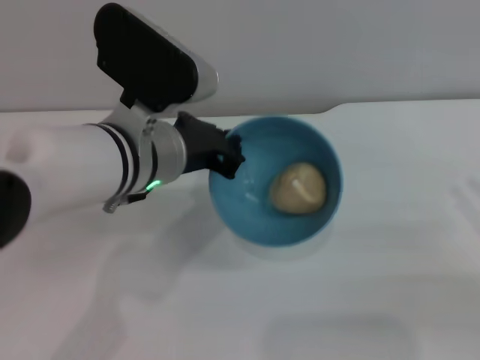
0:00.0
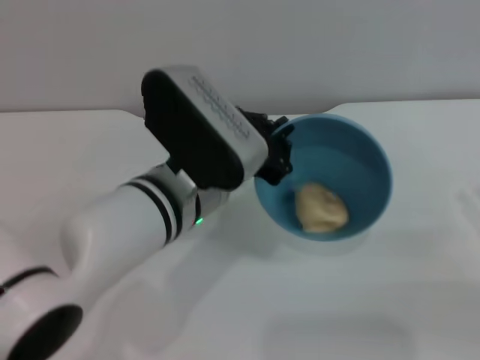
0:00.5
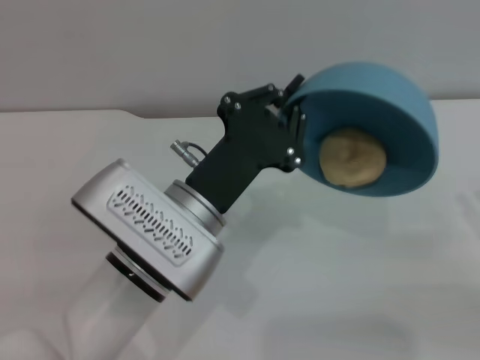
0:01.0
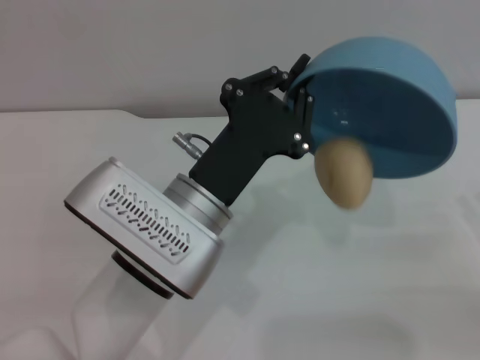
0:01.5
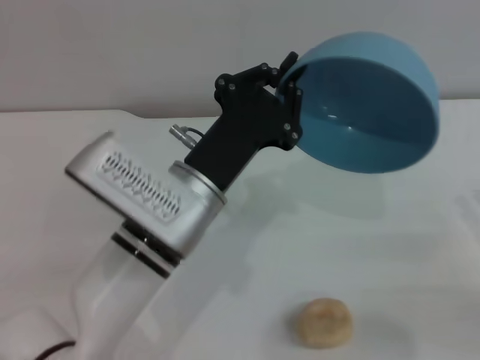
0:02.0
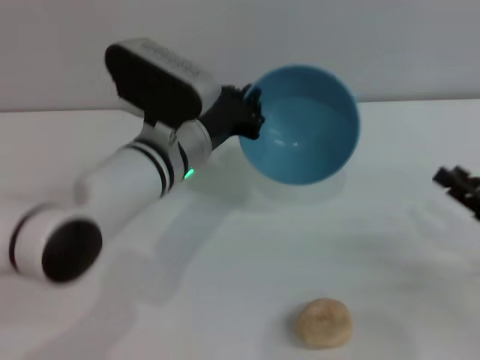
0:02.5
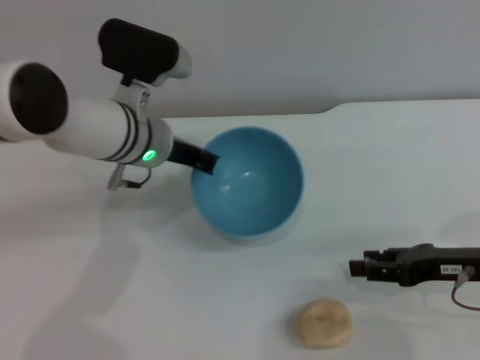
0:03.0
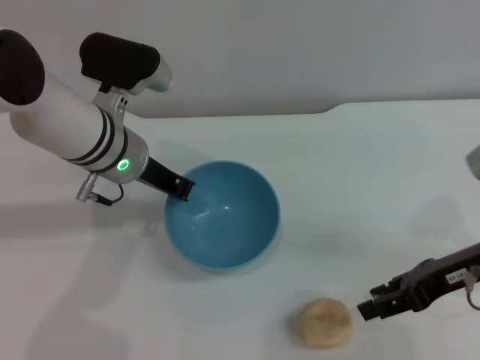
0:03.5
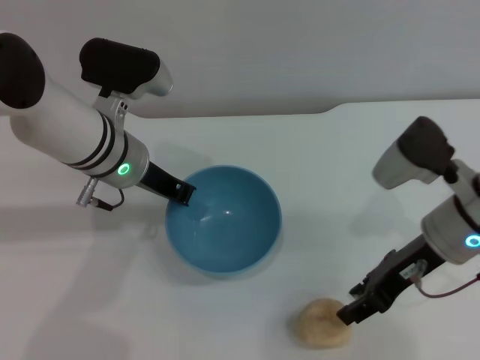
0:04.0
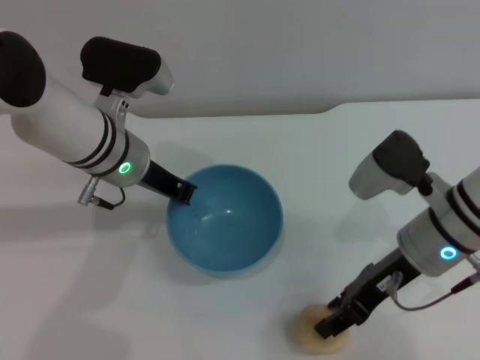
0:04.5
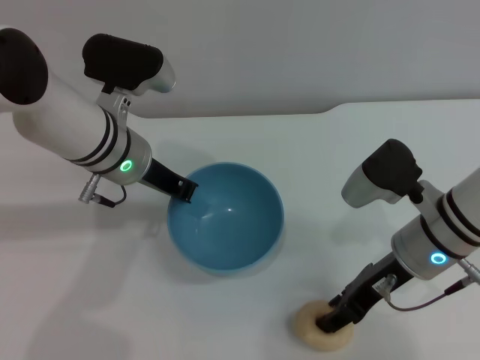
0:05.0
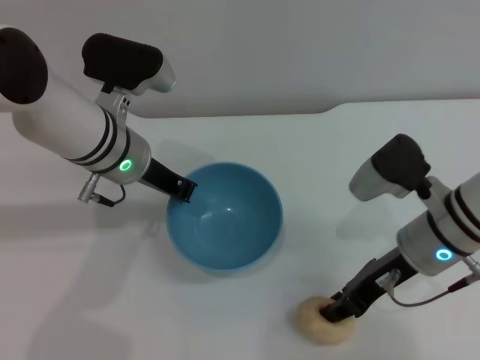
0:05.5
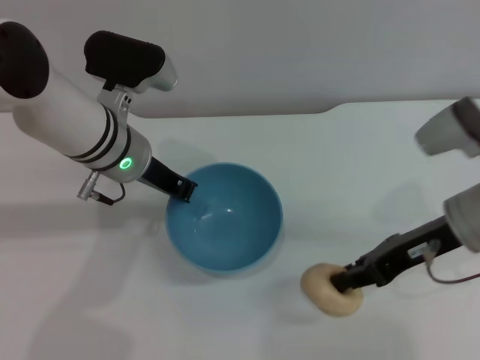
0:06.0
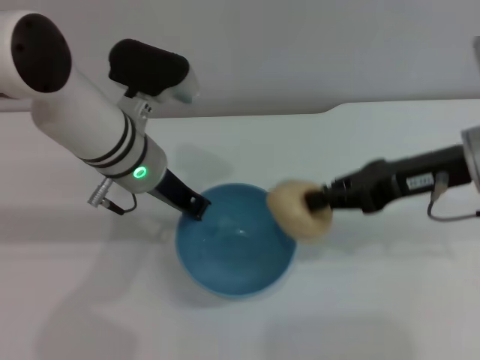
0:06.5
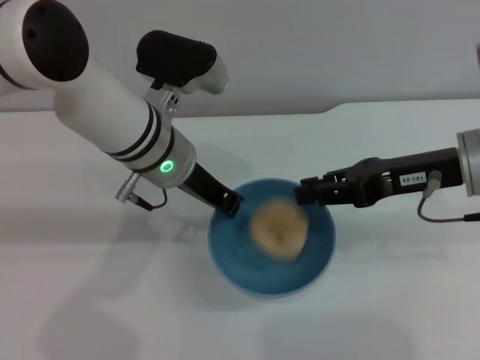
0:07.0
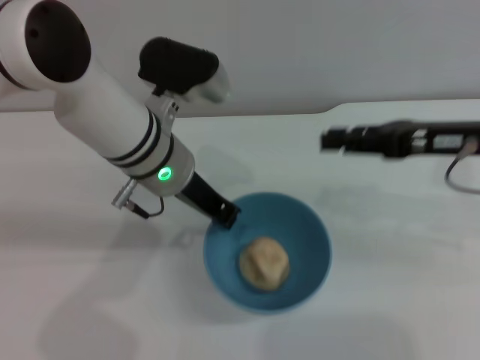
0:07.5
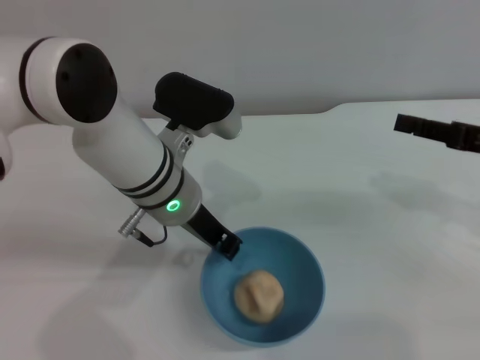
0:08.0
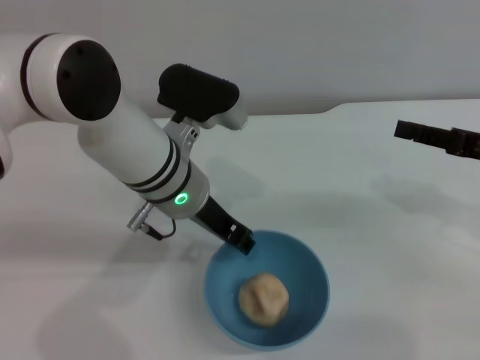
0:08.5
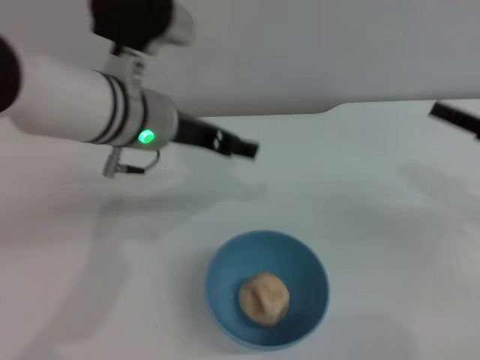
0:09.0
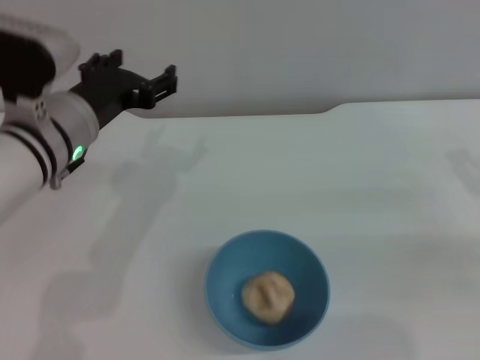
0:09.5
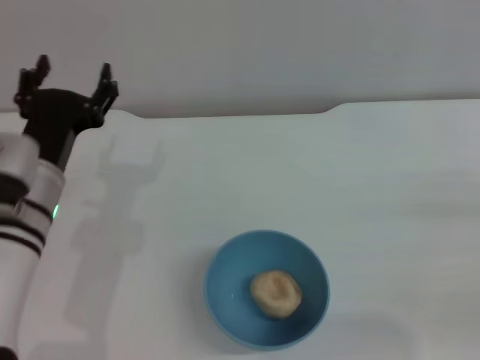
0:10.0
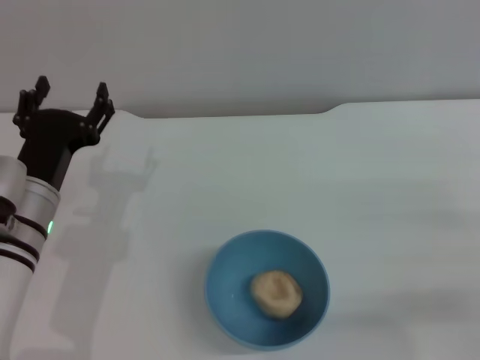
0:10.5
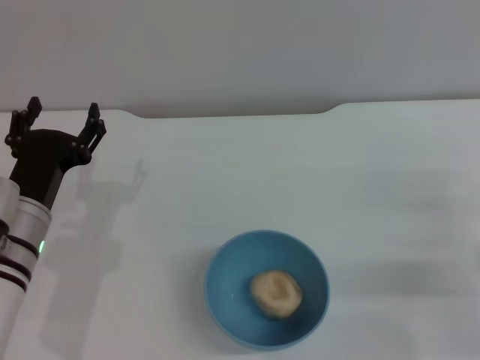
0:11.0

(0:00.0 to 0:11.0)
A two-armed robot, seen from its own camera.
Task of the whole recording: put the egg yolk pastry into the blue bowl and pour it out repeatedly.
Step, 0:00.0 - 0:01.5: Pour the egg yolk pastry out of bowl.
Step, 0:02.0 - 0:05.5: Pick up the egg yolk pastry with the right gripper.
Step, 0:06.0 - 0:07.0: Place the egg yolk pastry into the bowl.
Step, 0:07.5 - 0:08.5: Place the bowl on the table.
0:00.0 - 0:02.0: The left gripper goes approximately 5 cm downward.
0:02.0 - 0:03.5: The right gripper goes roughly 15 cm to the left and forward. Meanwhile the left gripper is displaced forward and to the left by some 15 cm.
0:03.5 - 0:05.5: The right gripper travels to the left by roughly 10 cm.
0:05.5 - 0:07.5: The right gripper is displaced upward and to the right by approximately 10 cm, and closes and opens again. The left gripper moves some 5 cm.
0:07.5 - 0:09.0: The left gripper opens up. The right gripper is displaced to the right and downward by some 10 cm.
0:09.0 - 0:11.0: The left gripper moves downward, to the left and backward, approximately 20 cm, while the right gripper goes some 10 cm downward.
